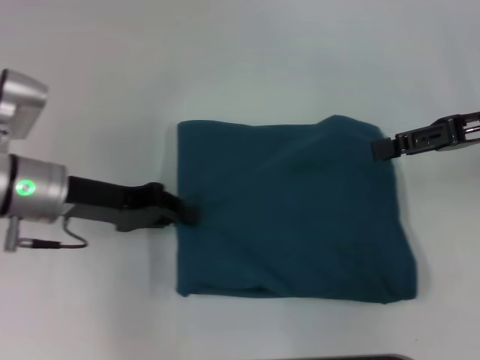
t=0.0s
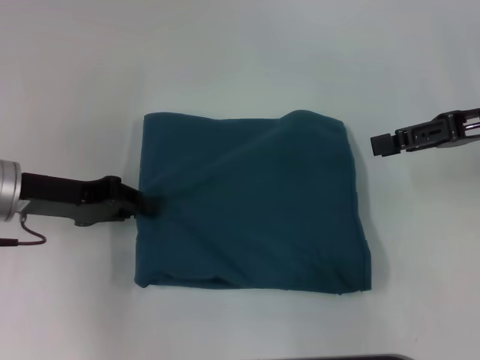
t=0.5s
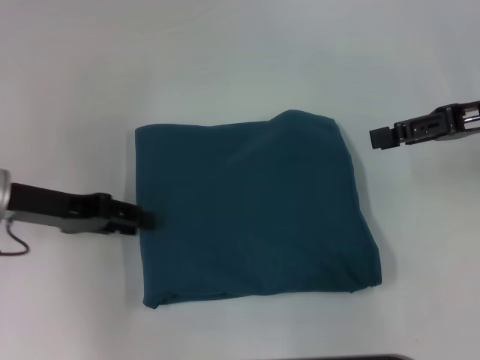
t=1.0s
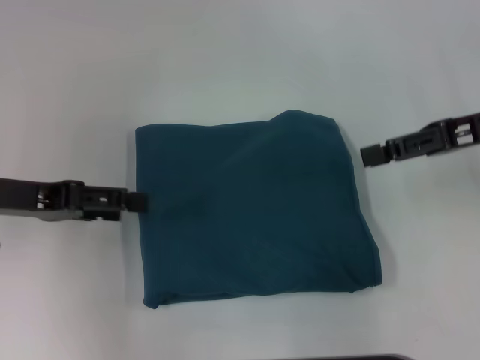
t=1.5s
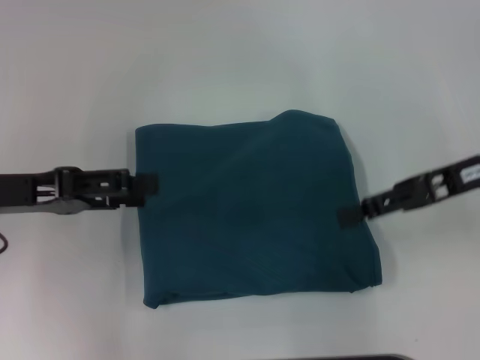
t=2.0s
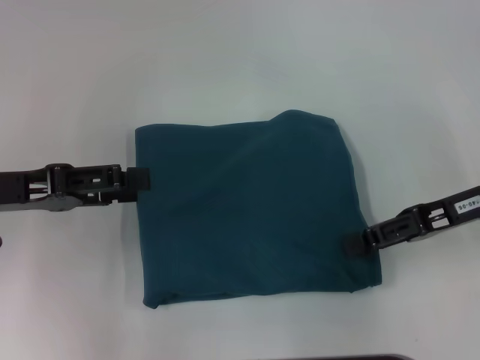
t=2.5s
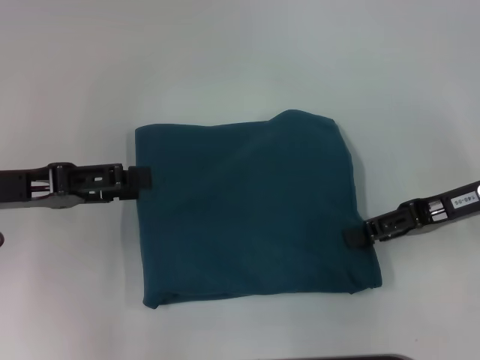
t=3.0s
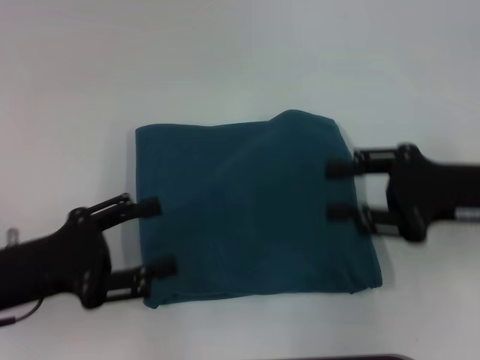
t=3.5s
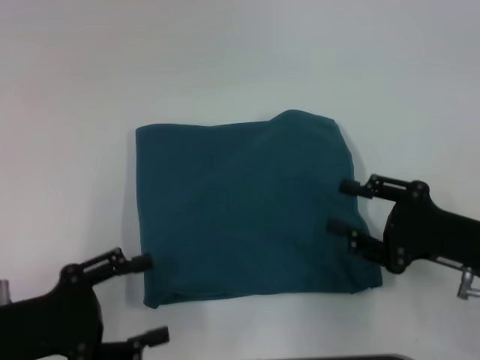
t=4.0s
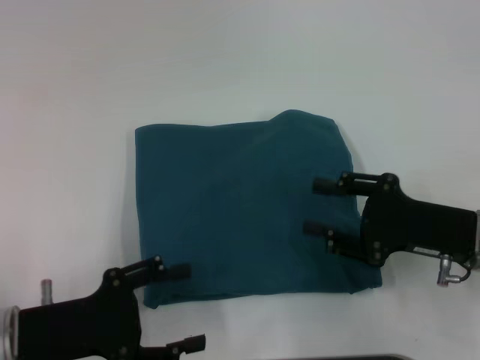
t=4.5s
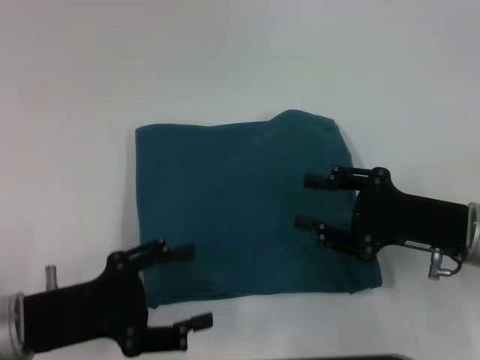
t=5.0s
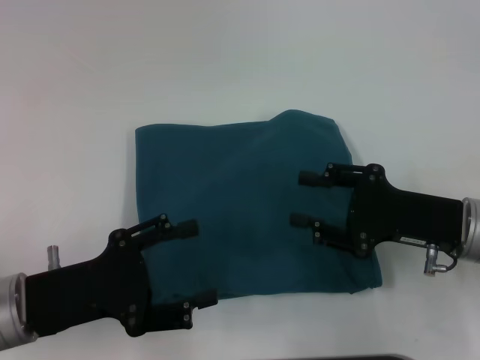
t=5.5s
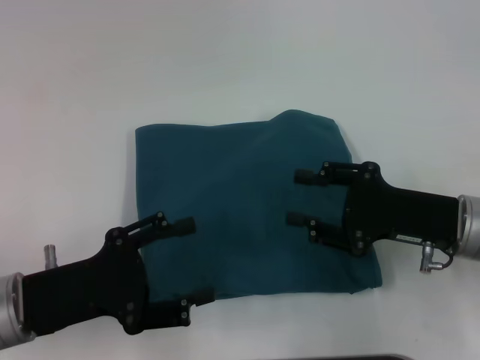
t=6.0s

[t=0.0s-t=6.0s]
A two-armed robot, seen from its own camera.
t=0.0s to t=2.0s: The left gripper travels to the left by about 5 cm, and opens up; the right gripper shifts by about 5 cm.
t=2.0s to t=4.0s: Both grippers move backward and downward, approximately 15 cm.
t=4.0s to t=6.0s: The grippers stay close to where they were, moving slightly.

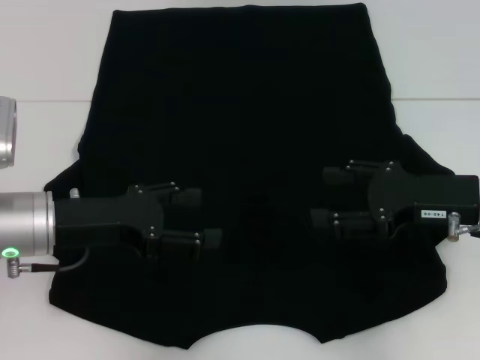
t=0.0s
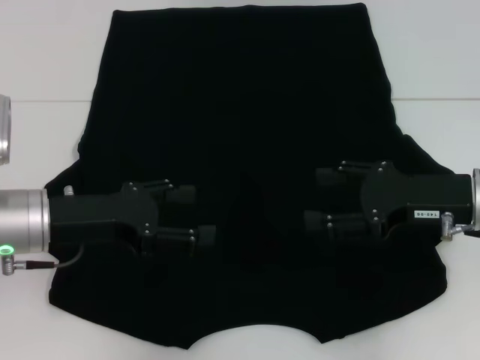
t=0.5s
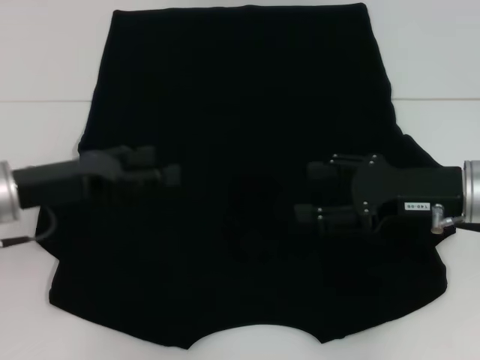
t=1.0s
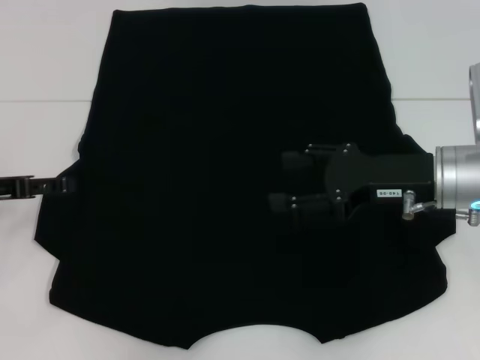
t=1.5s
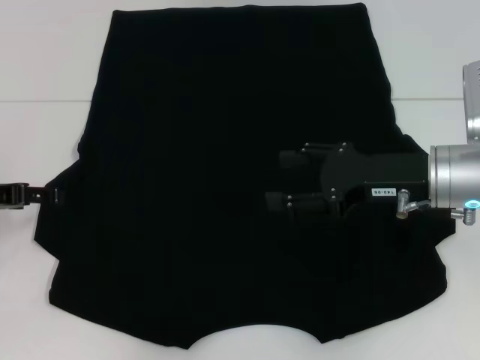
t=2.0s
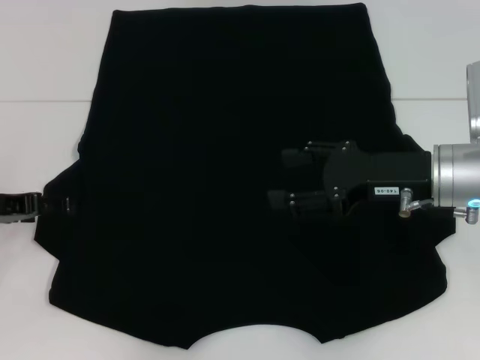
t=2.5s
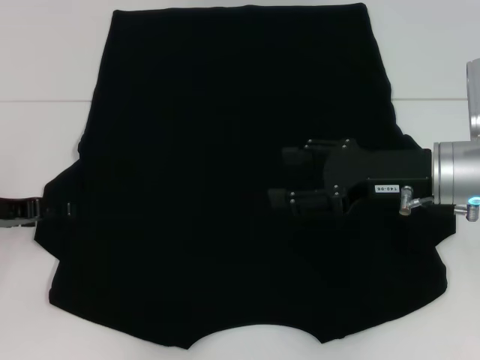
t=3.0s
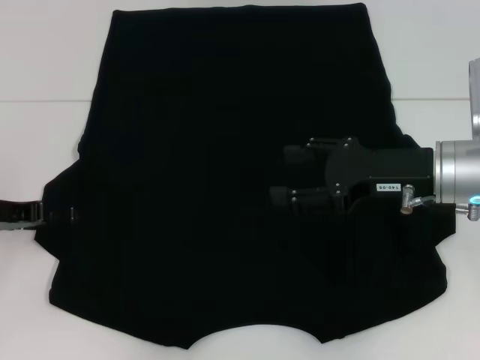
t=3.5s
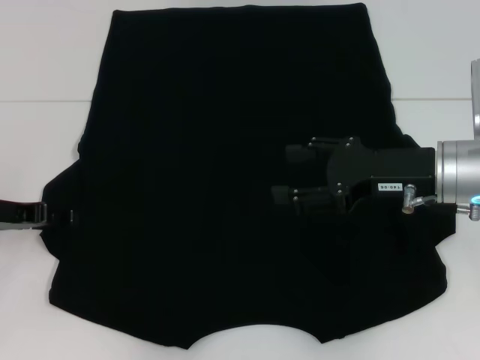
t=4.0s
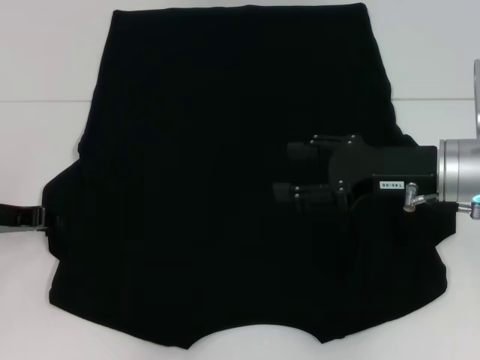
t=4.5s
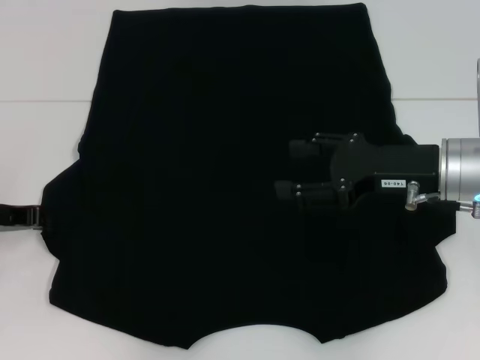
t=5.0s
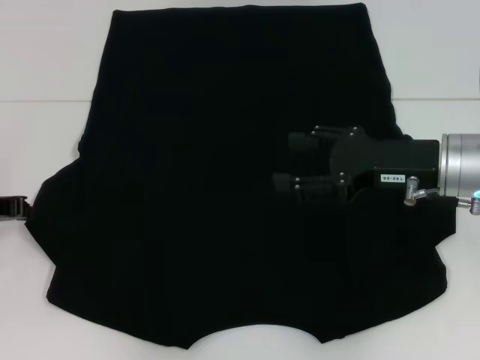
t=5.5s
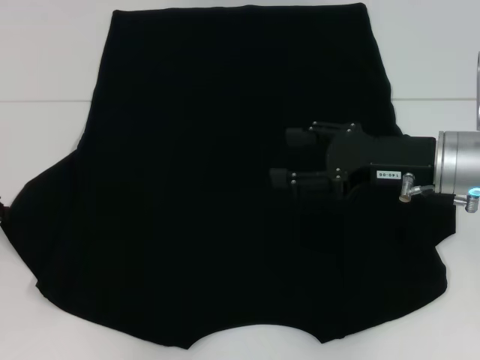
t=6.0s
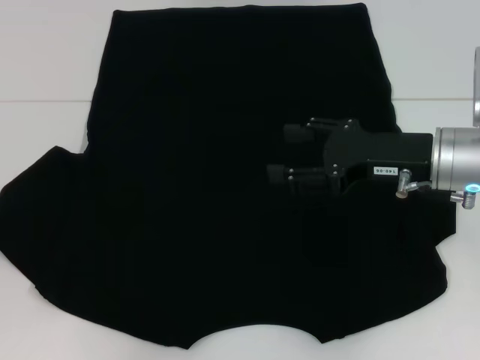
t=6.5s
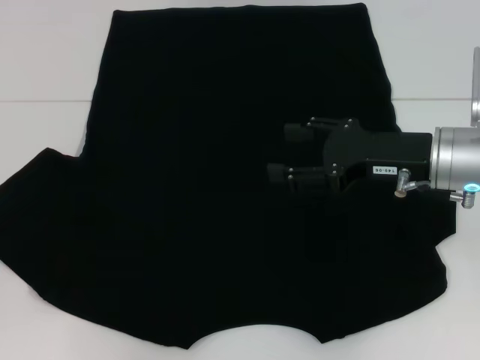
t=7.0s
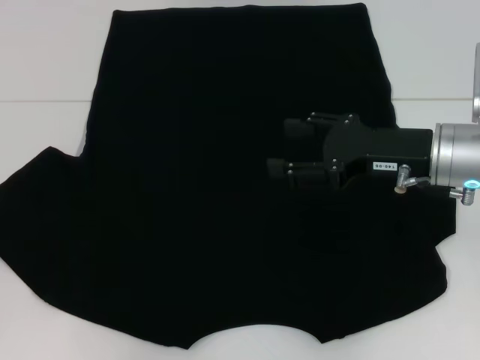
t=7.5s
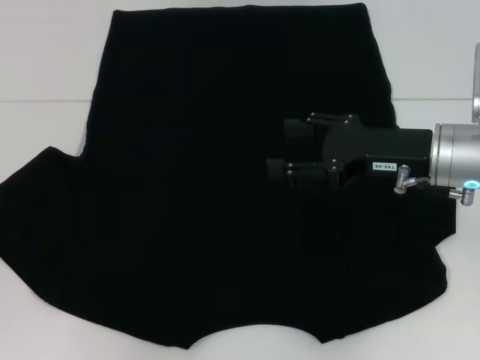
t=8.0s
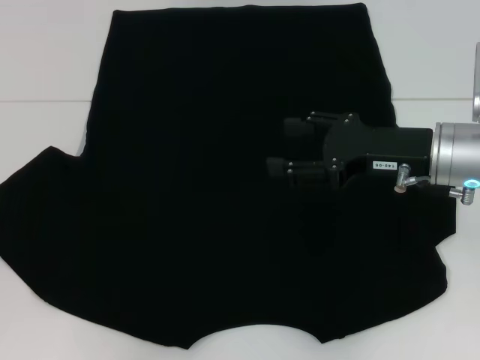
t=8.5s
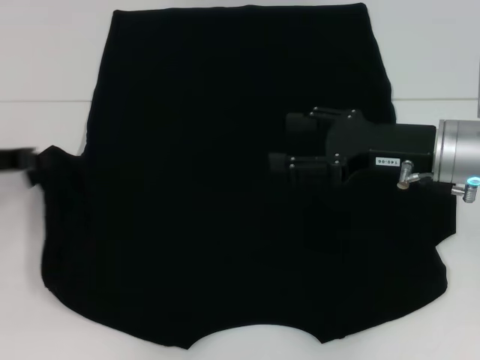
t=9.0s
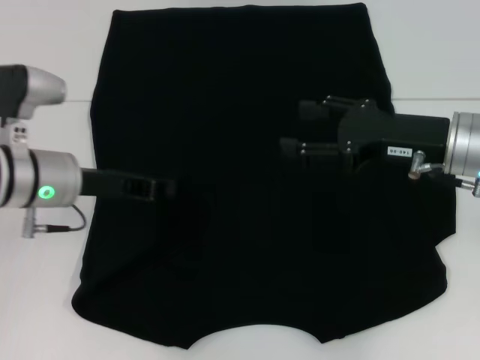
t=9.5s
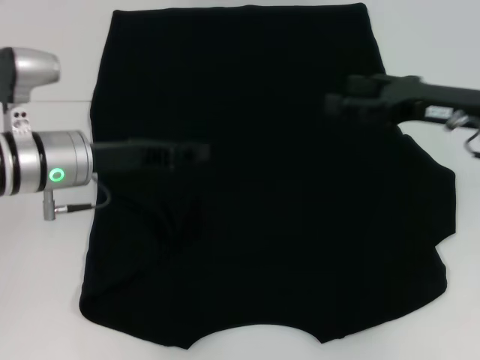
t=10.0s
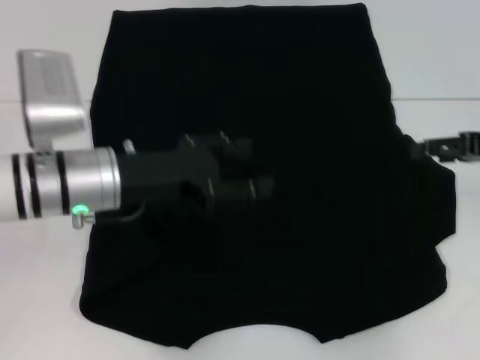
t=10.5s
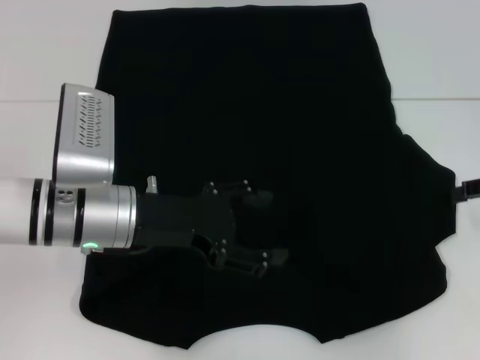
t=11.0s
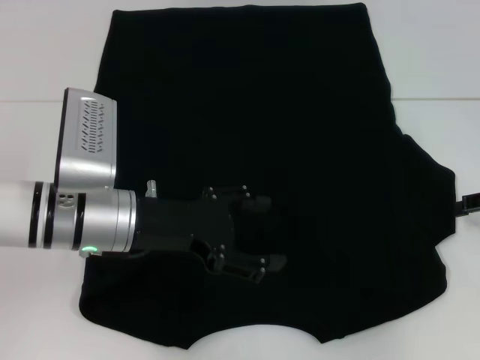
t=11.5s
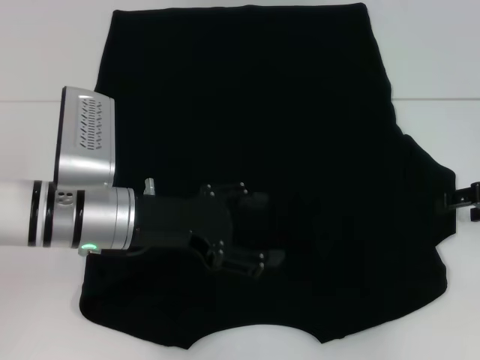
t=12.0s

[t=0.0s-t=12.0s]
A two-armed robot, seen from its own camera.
Step, t=0.0s to t=9.5s: Fold the bottom left sleeve with your left hand.
t=0.0s to t=2.0s: The right gripper shifts by about 5 cm. The left gripper goes approximately 10 cm to the left.
t=2.0s to t=4.0s: The grippers move only a little.
t=4.0s to t=6.0s: The left gripper closes up.
t=6.0s to t=8.0s: The grippers move only a little.
t=8.0s to t=10.0s: The right gripper changes place by roughly 5 cm. The left gripper is displaced to the right by roughly 15 cm.
t=10.0s to t=12.0s: The left gripper ends up roughly 5 cm from where it was, and opens up; the right gripper shifts some 10 cm to the right.

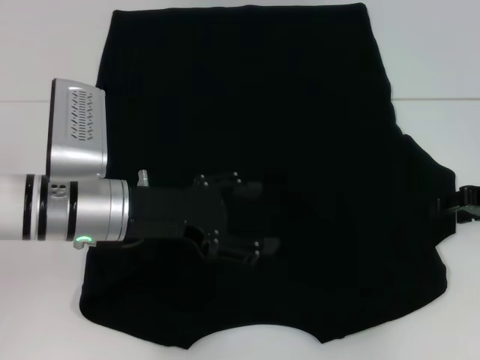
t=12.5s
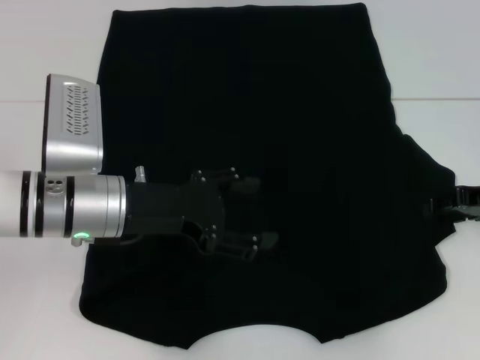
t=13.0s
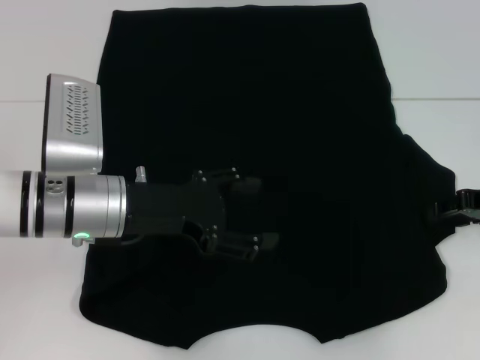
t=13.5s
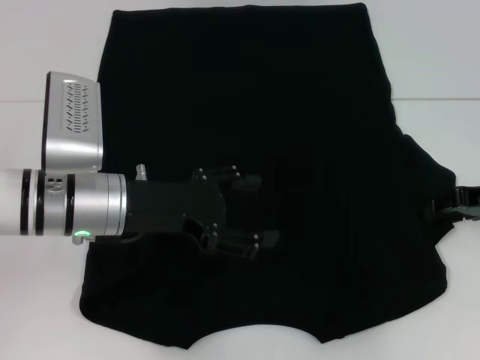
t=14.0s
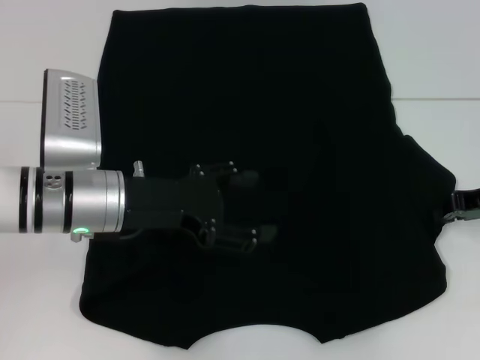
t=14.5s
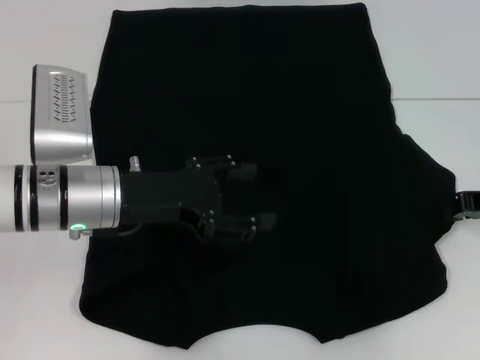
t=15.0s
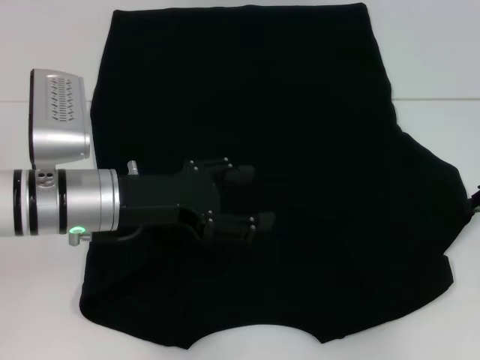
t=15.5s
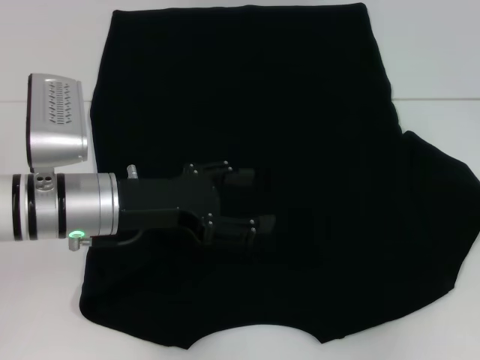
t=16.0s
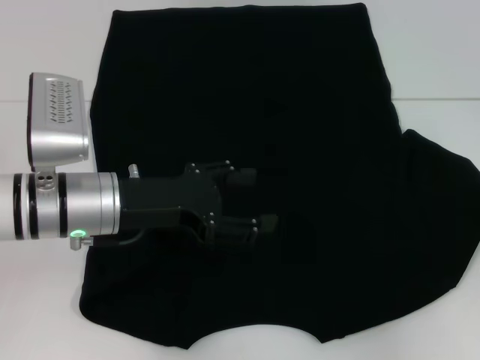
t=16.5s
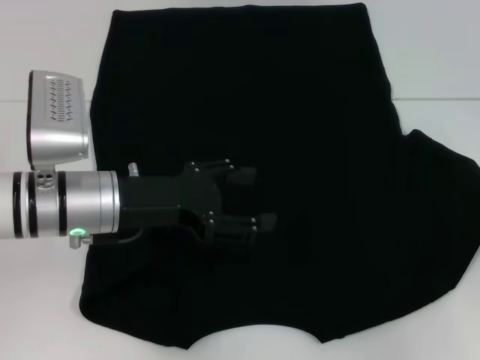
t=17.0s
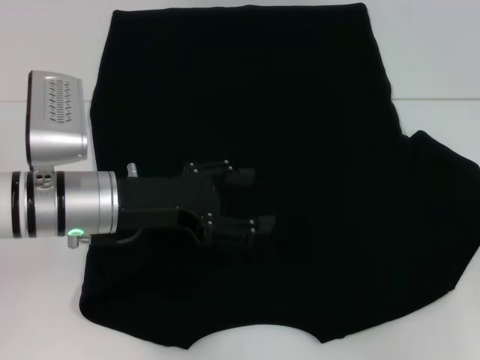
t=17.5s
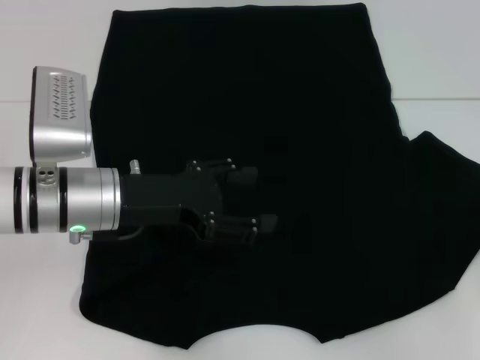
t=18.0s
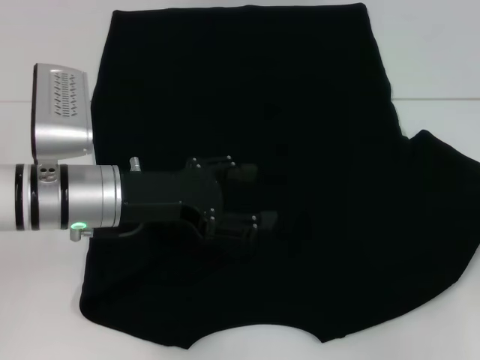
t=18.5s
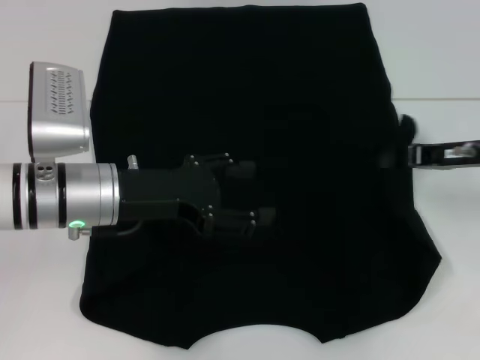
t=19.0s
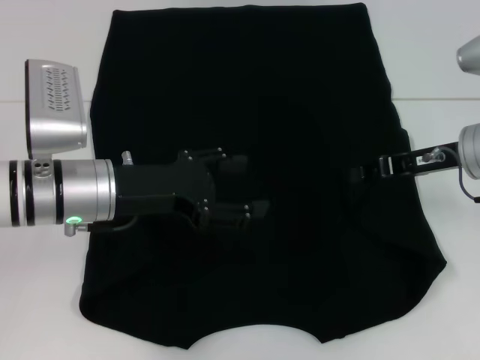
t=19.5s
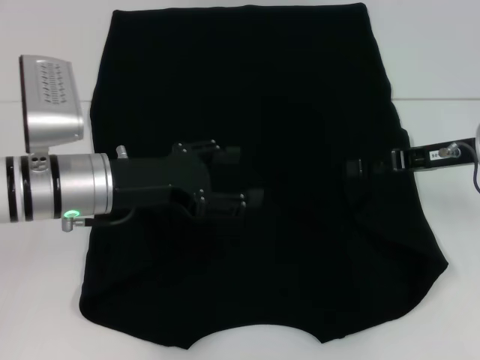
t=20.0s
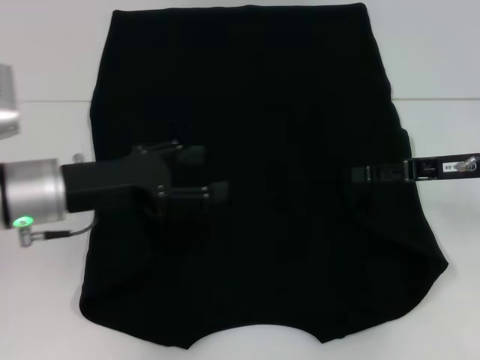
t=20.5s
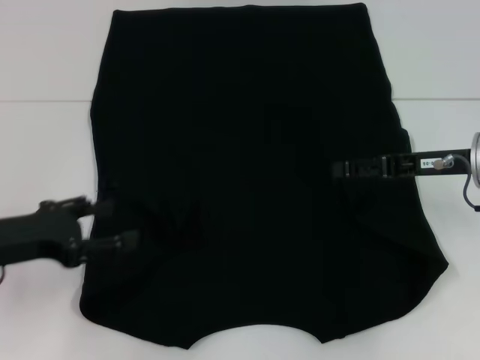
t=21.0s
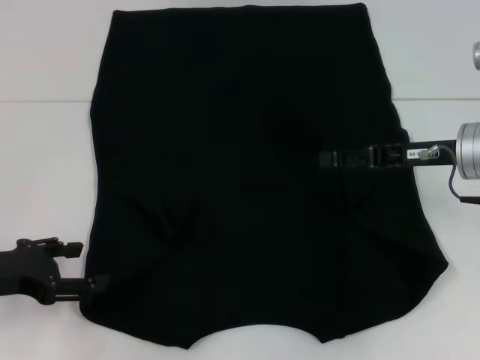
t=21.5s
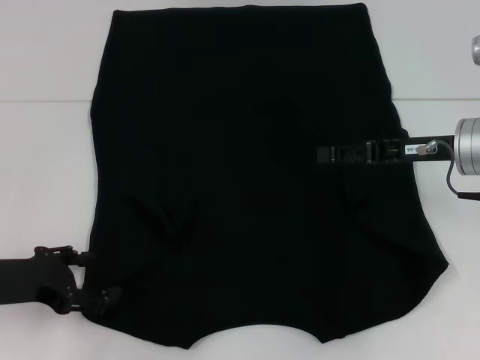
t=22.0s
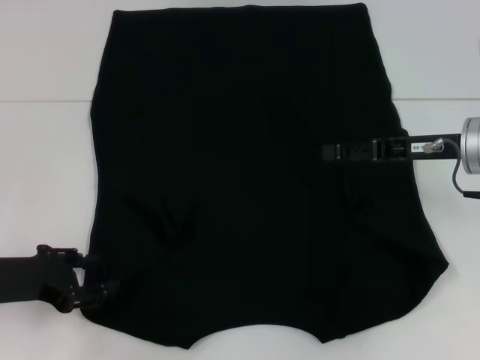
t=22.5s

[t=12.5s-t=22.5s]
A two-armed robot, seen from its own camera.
Step, t=12.5s to t=20.0s: Fold the bottom right sleeve with your right hand.
t=12.5s to t=14.5s: The right gripper closes up.
t=14.5s to t=16.5s: The right gripper travels to the right by some 5 cm.
t=16.5s to t=18.5s: The grippers move only a little.
t=18.5s to t=20.5s: The right gripper is displaced to the left by about 10 cm, and opens its fingers.
t=20.5s to t=22.5s: The left gripper travels to the left, backward and downward by approximately 10 cm.
